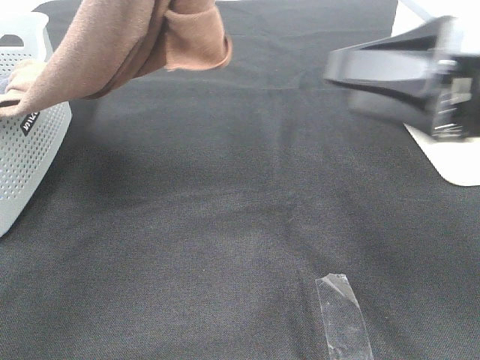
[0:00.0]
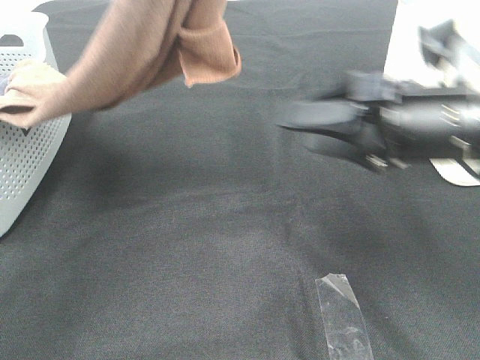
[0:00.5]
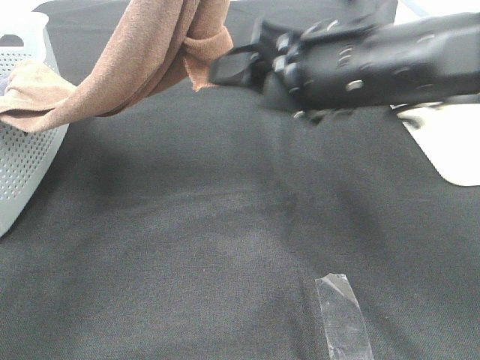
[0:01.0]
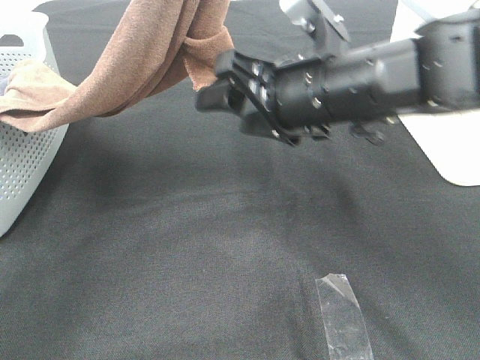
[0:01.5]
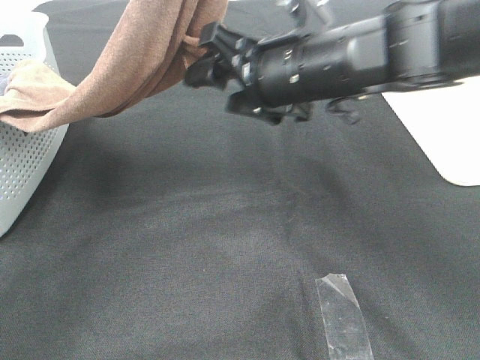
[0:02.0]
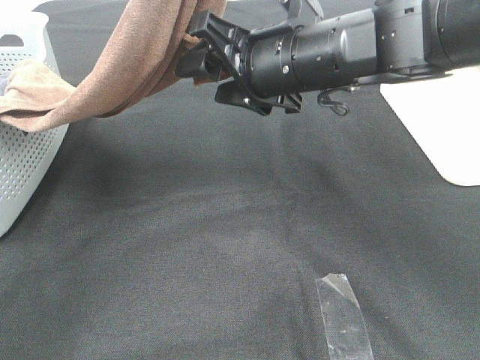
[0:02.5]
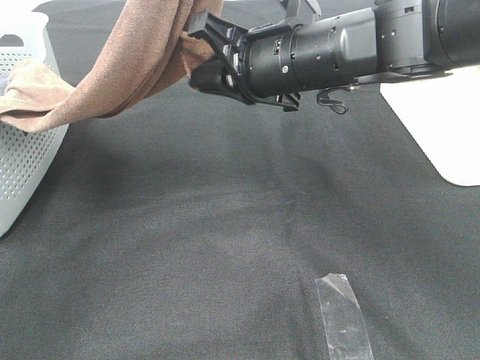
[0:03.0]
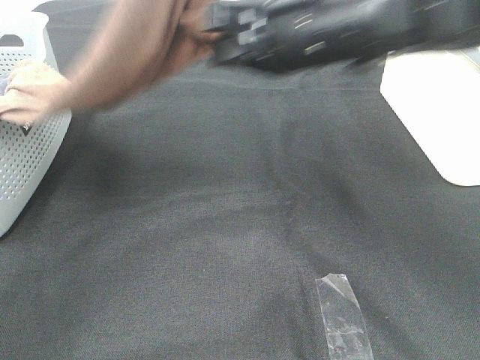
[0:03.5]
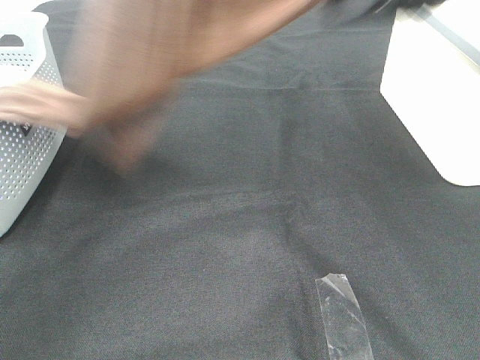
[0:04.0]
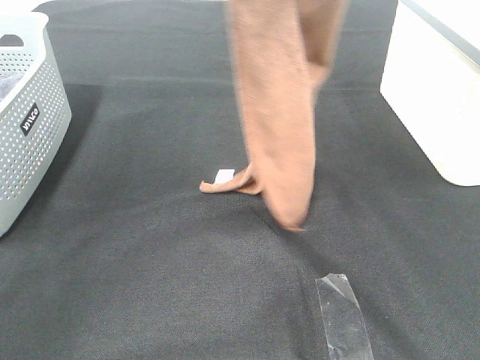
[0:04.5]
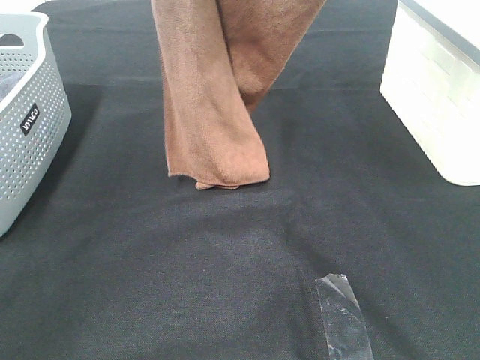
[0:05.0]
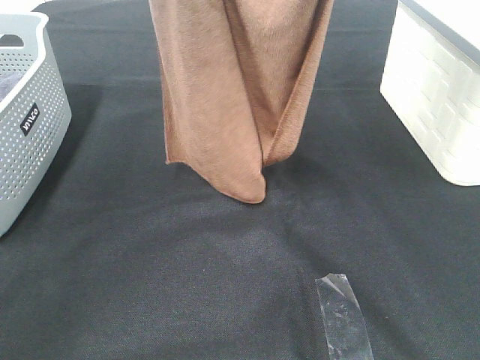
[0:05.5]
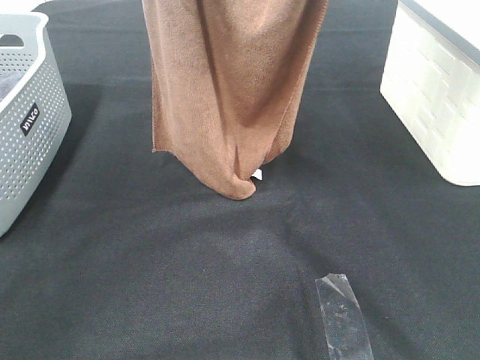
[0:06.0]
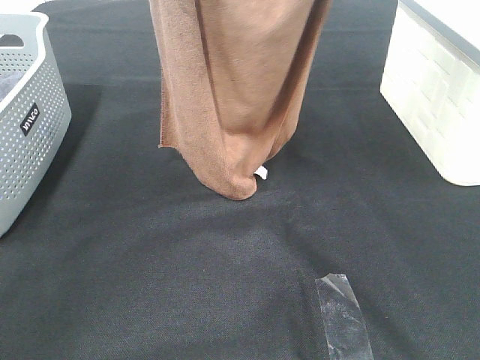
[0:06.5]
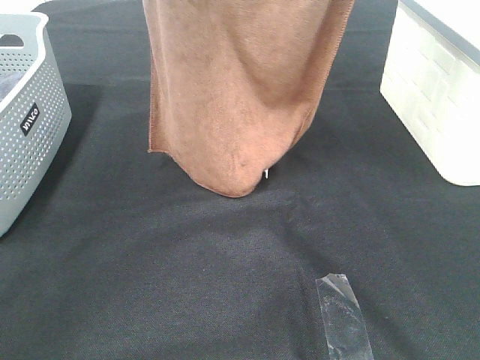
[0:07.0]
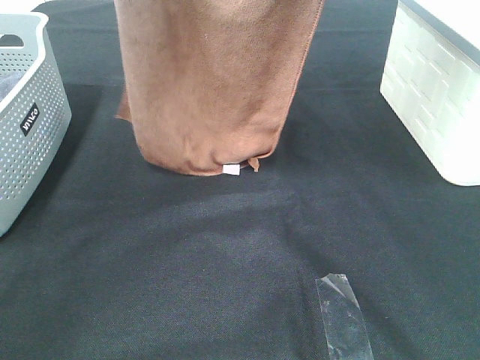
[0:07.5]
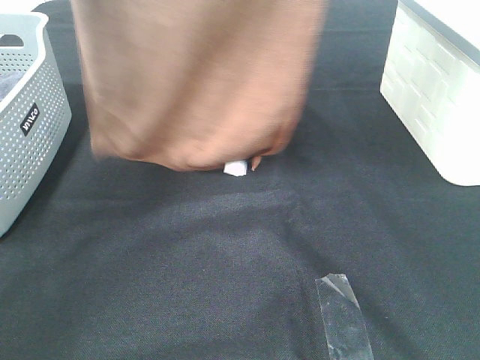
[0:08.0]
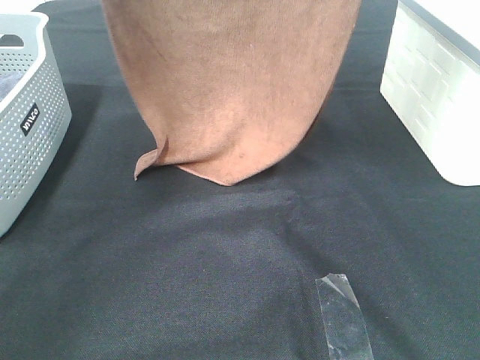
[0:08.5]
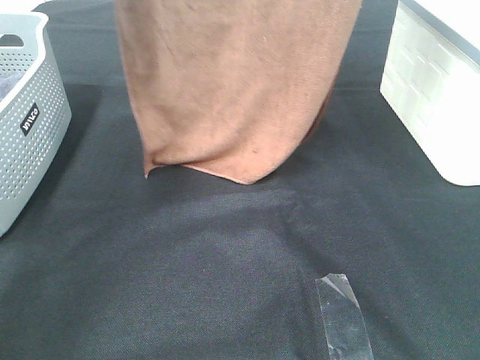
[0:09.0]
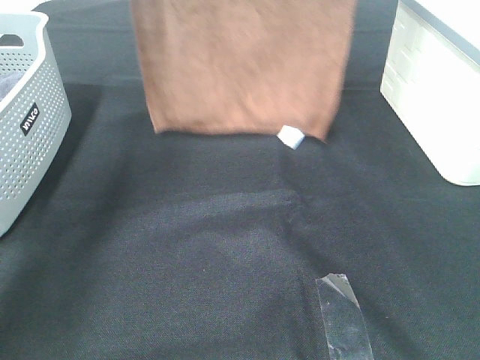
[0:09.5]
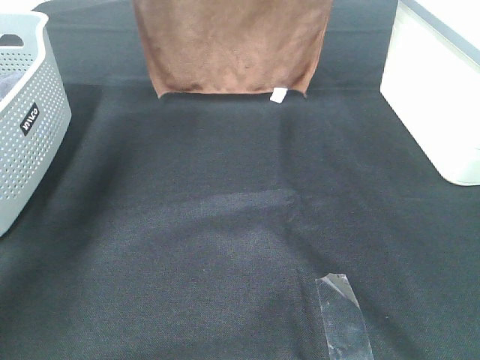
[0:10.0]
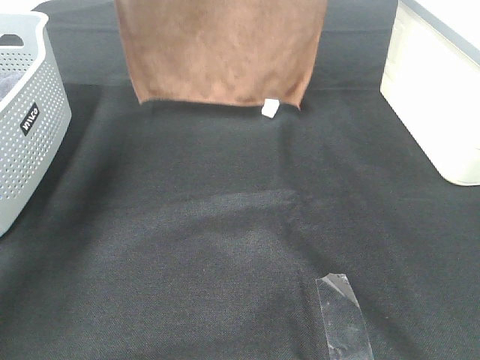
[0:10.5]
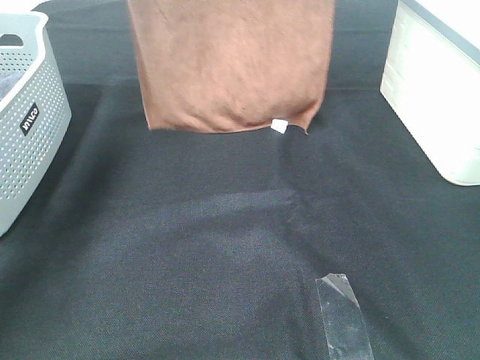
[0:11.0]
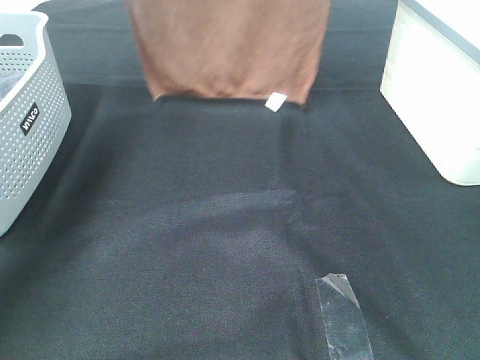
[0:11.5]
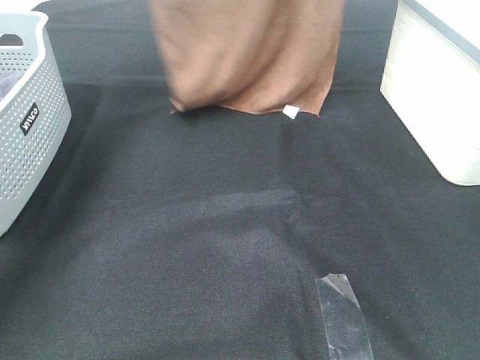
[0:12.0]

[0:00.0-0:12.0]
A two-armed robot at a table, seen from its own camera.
Task of the whole recording: Remove the towel and place it.
Step, 0:00.0 to 0:03.0: Right hand: grab a corner of the brown towel and straighten it.
Step, 0:03.5 to 0:11.5: Left hand: spread the brown towel flat on the table.
Step, 0:03.5 to 0:11.5: Right hand: spread the brown towel flat on the table.
0:00.0 to 0:02.0: The right gripper travels to the left and forward by some 15 cm.
0:02.0 to 0:04.0: The left gripper travels upward by some 5 cm; the right gripper travels upward and to the right by approximately 20 cm, and closes its fingers.
0:04.0 to 0:06.0: The right gripper heads upward, covering about 10 cm.
0:06.0 to 0:08.0: The left gripper changes place by roughly 5 cm. The right gripper shifts by roughly 5 cm.
0:08.0 to 0:10.0: Both grippers travel together forward, some 10 cm.
0:10.0 to 0:12.0: The left gripper shifts roughly 5 cm downward.

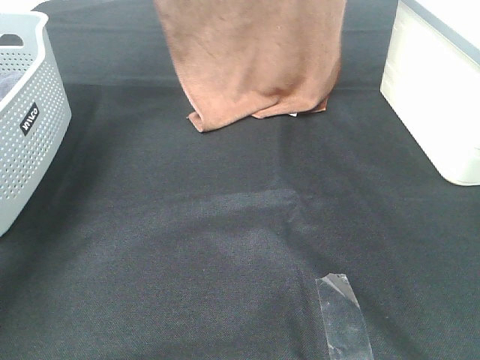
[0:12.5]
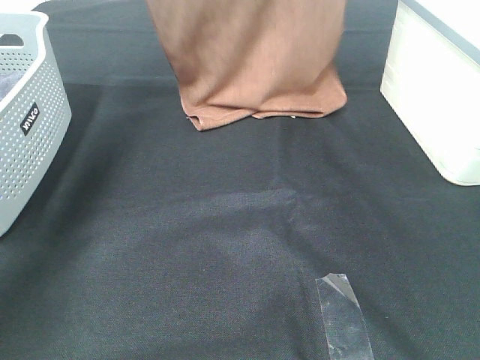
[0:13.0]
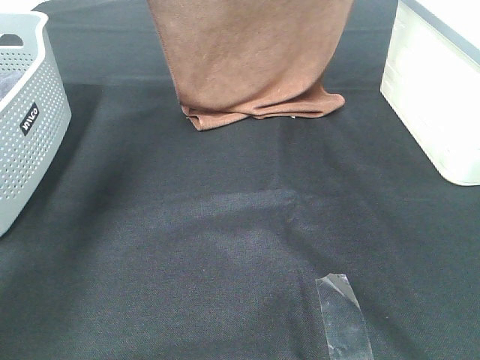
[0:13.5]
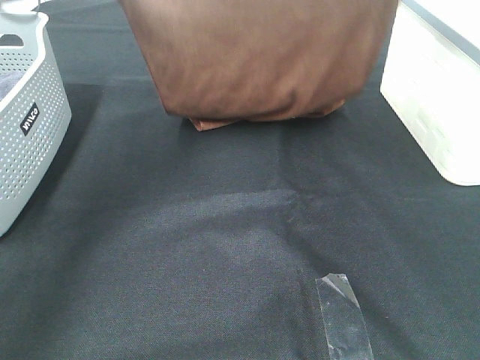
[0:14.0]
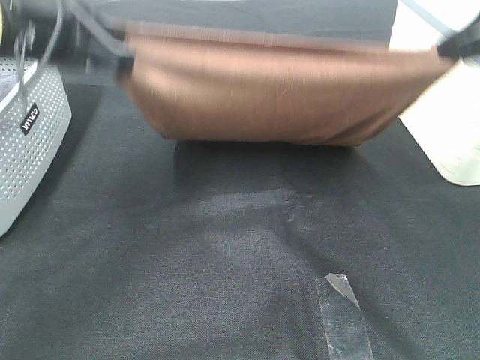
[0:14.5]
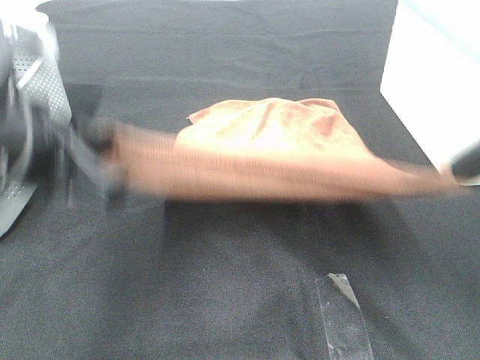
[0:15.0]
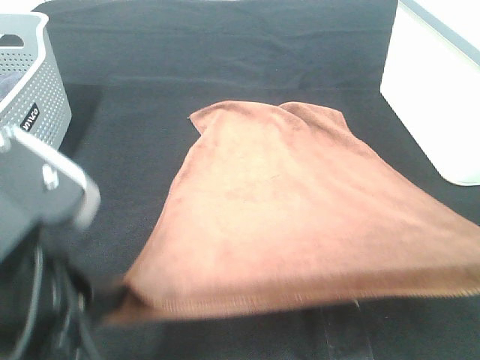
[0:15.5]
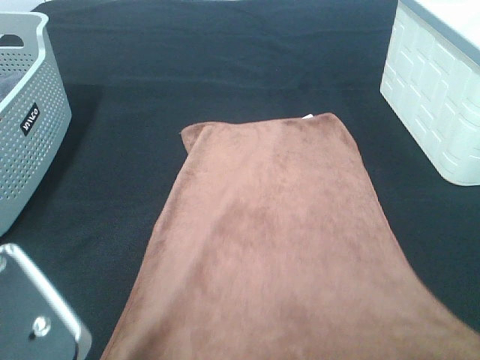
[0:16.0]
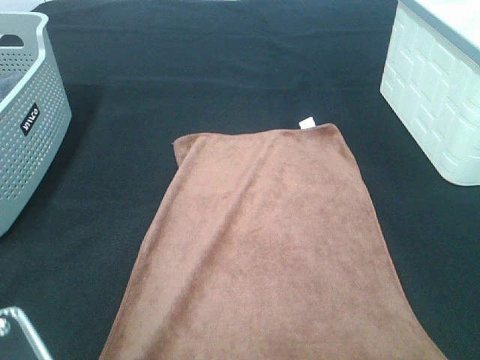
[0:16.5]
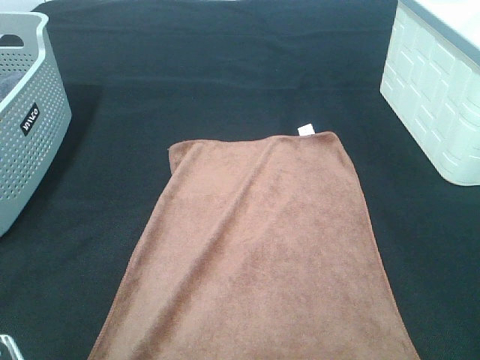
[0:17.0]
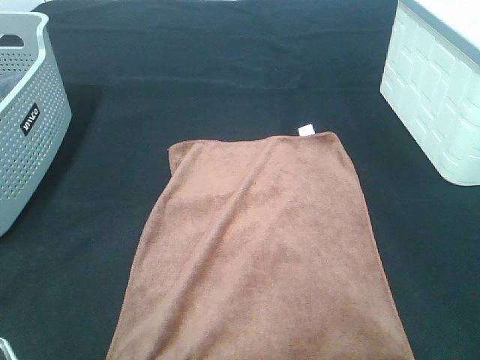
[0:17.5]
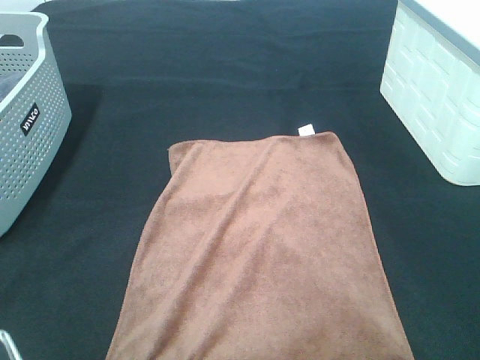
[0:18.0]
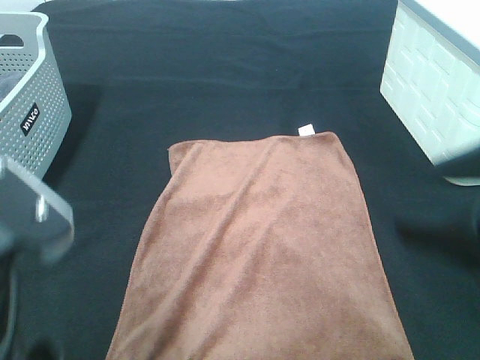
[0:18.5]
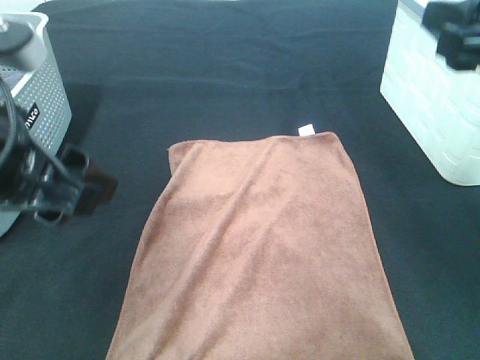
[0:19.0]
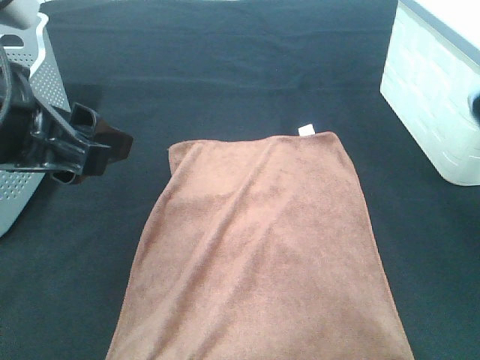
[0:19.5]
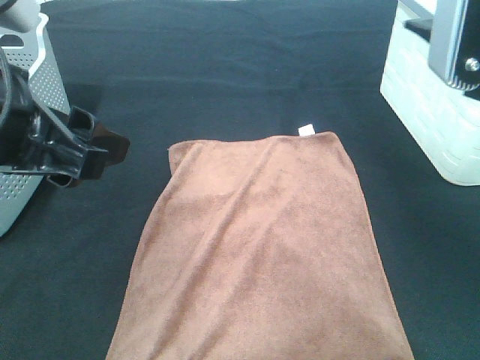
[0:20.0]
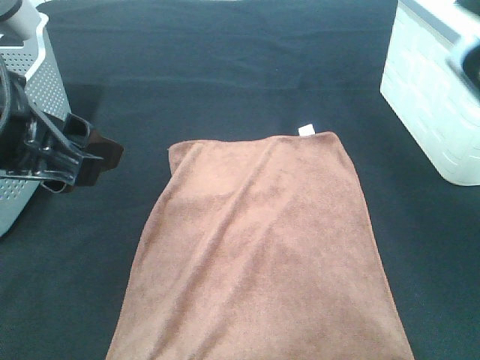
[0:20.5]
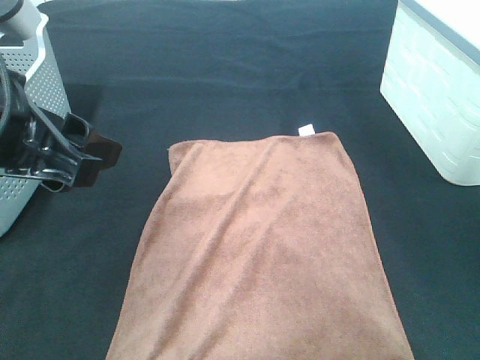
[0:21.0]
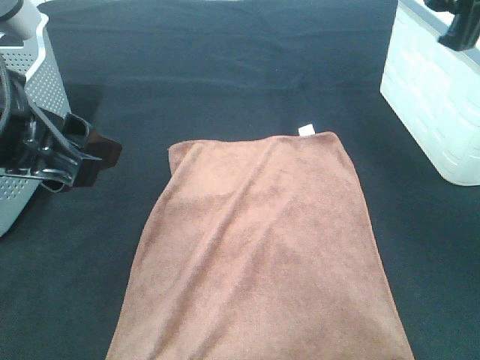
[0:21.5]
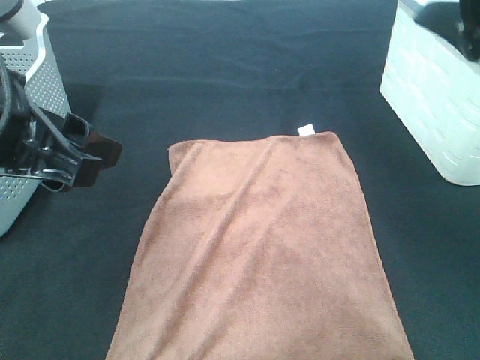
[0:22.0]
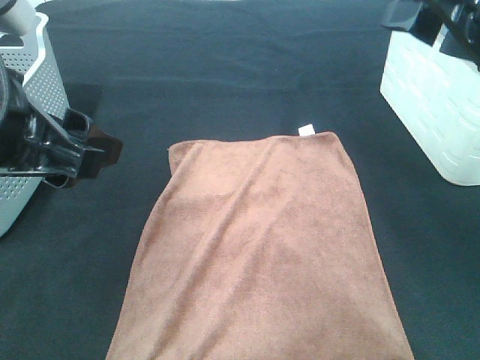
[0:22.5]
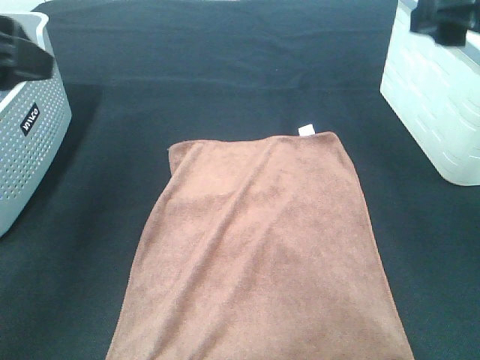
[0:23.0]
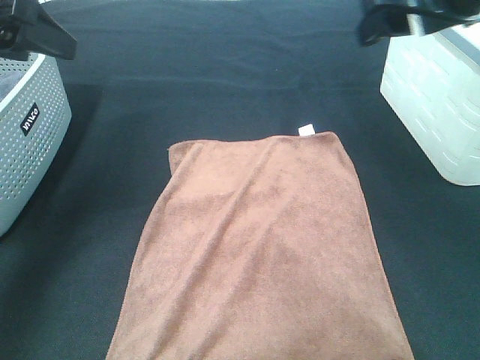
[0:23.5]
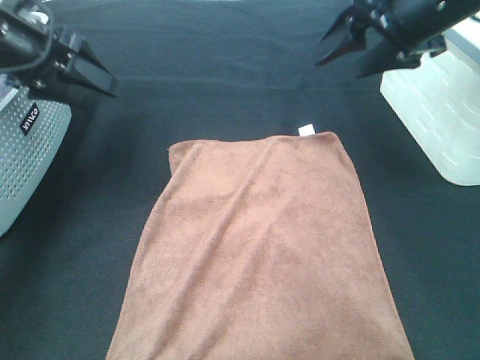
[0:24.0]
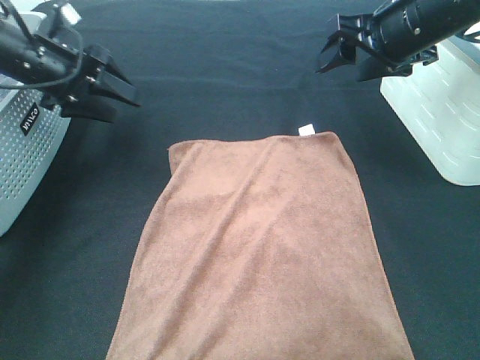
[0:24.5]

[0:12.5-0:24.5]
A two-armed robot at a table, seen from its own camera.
Task of the whole recording: Remove the towel and place it.
0:12.5 to 0:14.5: The grippers both shift backward and downward by approximately 30 cm.
0:14.5 to 0:16.5: The left gripper travels backward by some 25 cm, while the right gripper heads backward and downward, covering about 20 cm.
0:16.5 to 0:18.5: The left gripper is displaced forward by about 10 cm, and opens its fingers. Meanwhile the right gripper heads forward, covering approximately 5 cm, and opens.
0:18.5 to 0:20.5: The left gripper goes roughly 10 cm forward. Meanwhile the right gripper goes about 10 cm forward and upward.
0:22.5 to 0:24.5: The two grippers go roughly 20 cm forward.

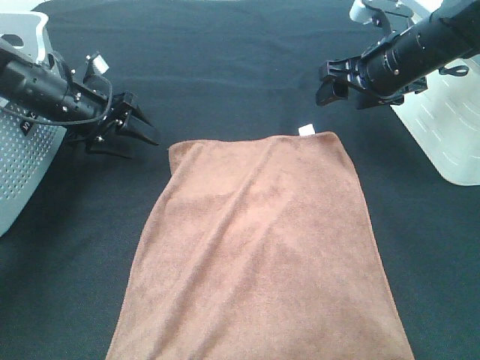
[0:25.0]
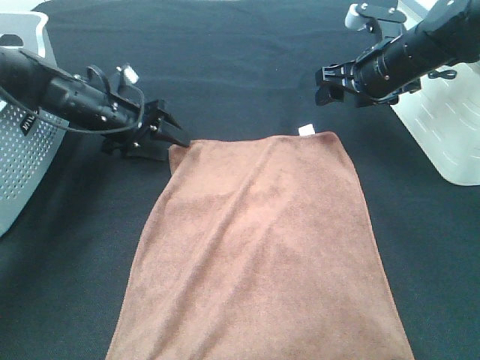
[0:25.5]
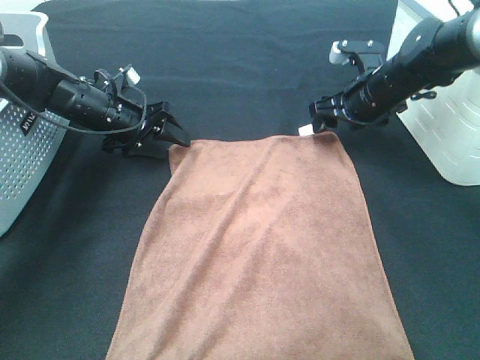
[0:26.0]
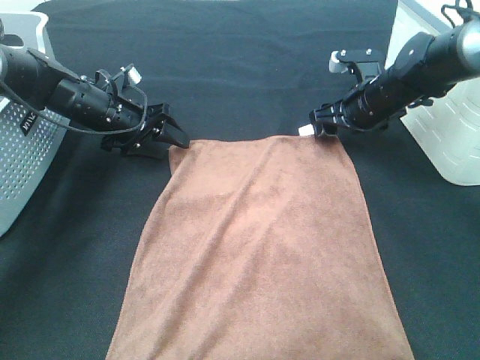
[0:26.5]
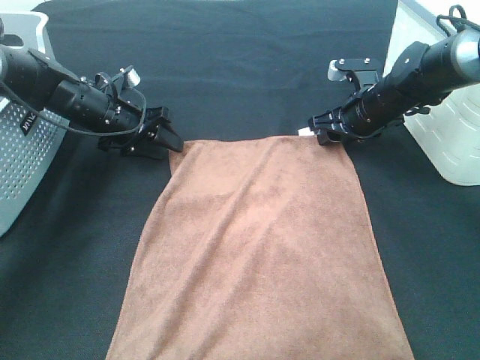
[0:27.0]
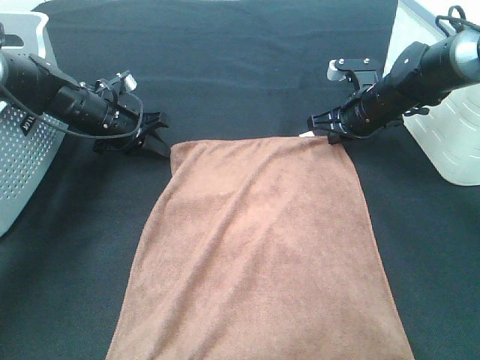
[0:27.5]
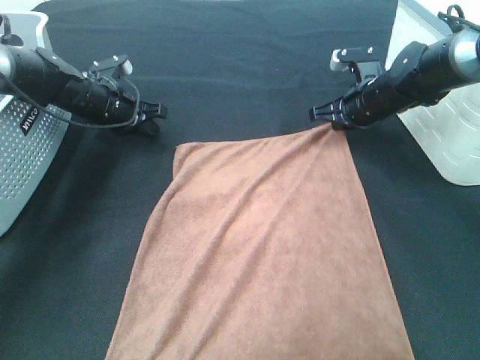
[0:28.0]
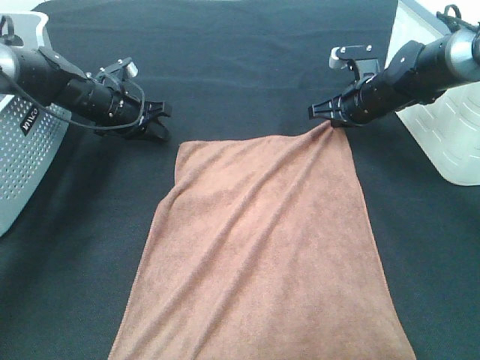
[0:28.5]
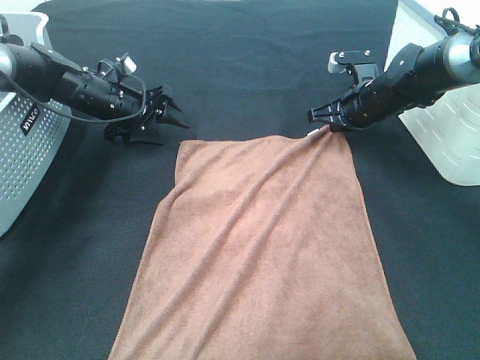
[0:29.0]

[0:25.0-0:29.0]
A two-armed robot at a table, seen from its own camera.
Task of the whole recording: Remove the towel and place it.
0:25.0 to 0:27.0: The left gripper moves roughly 5 cm. The right gripper is displaced downward by some 10 cm.
0:27.0 to 0:29.0: The left gripper closes, then opens again. Meanwhile the right gripper closes its fingers.
